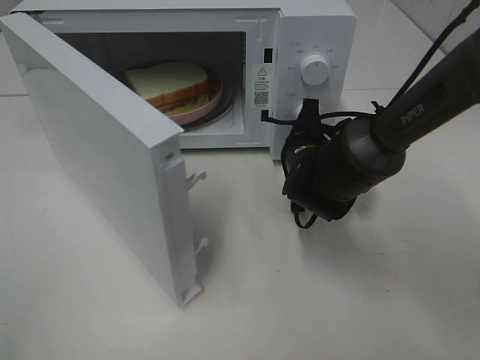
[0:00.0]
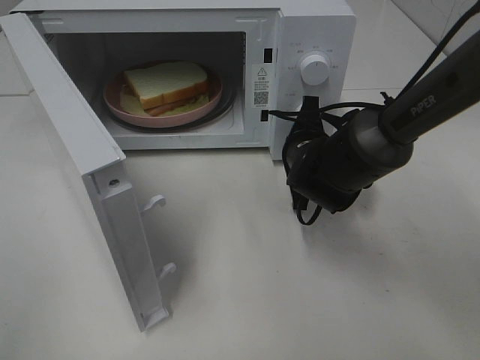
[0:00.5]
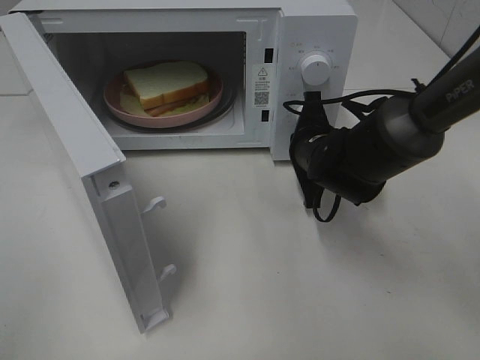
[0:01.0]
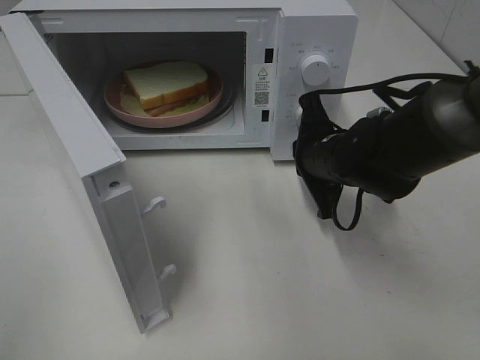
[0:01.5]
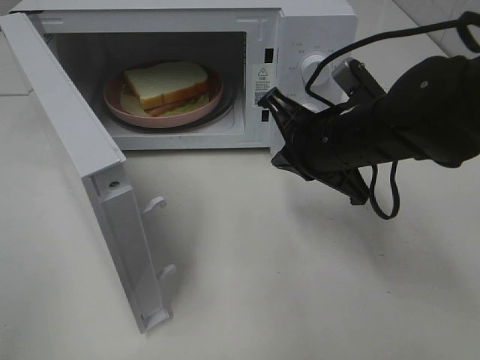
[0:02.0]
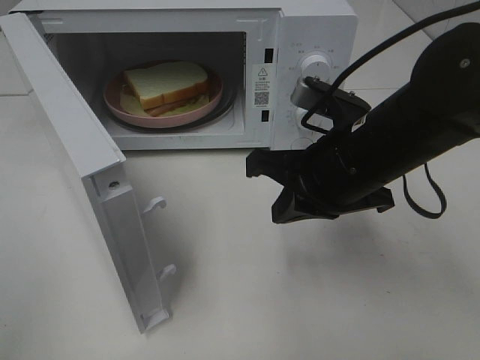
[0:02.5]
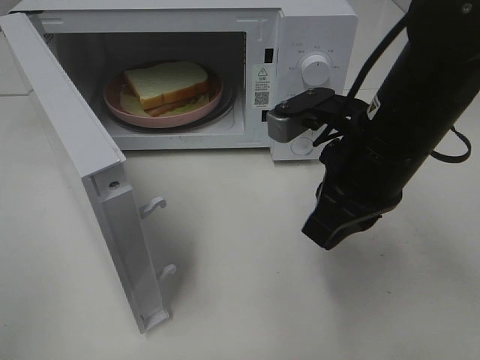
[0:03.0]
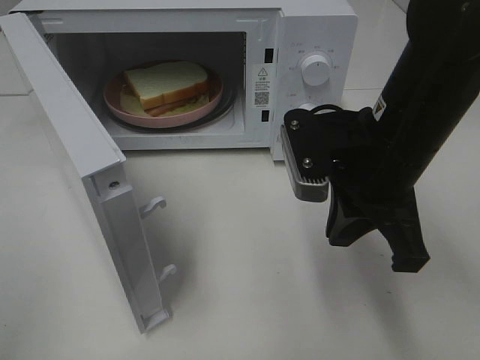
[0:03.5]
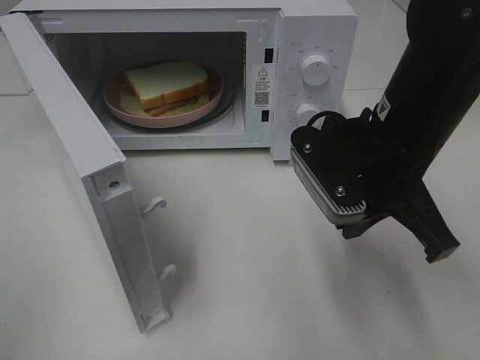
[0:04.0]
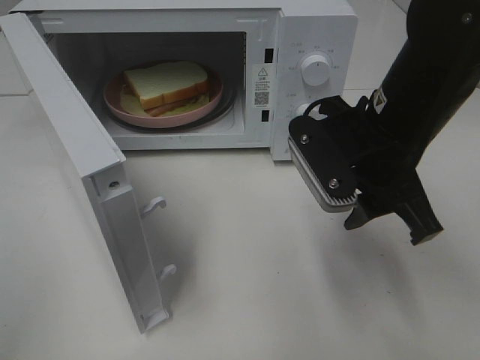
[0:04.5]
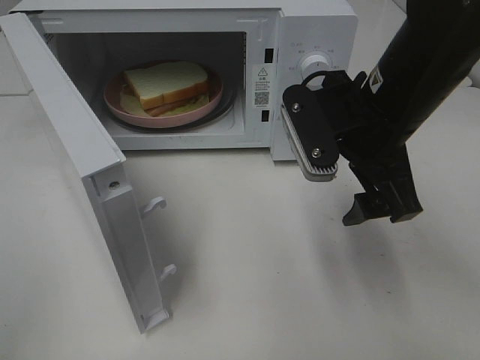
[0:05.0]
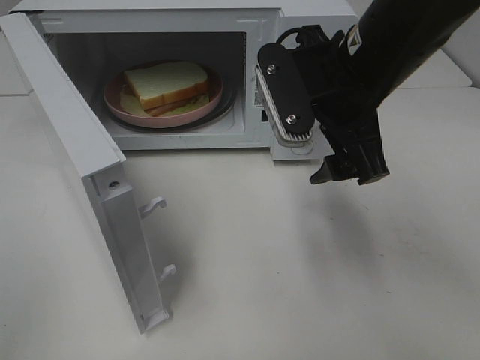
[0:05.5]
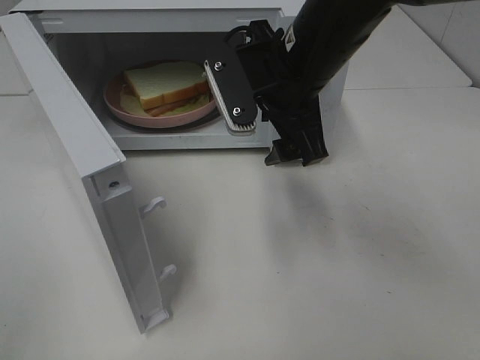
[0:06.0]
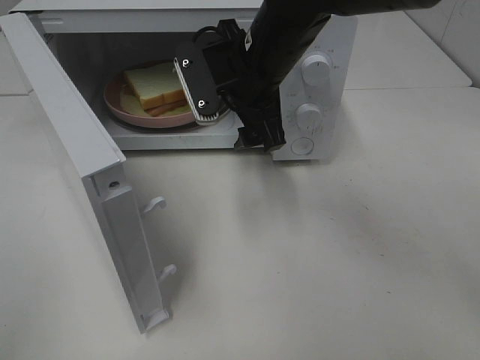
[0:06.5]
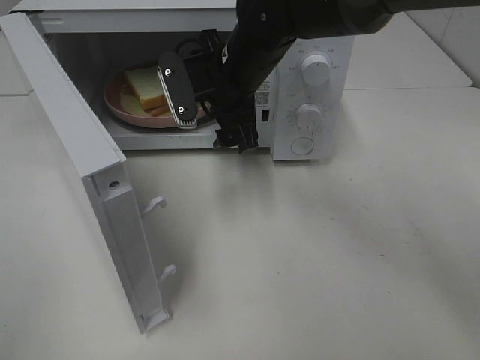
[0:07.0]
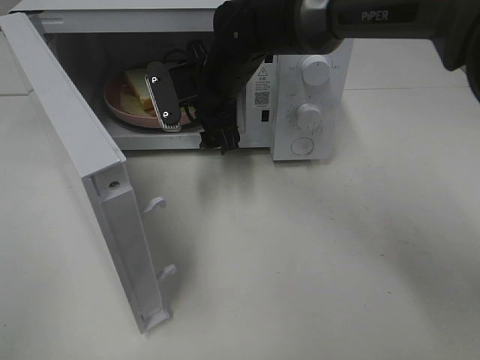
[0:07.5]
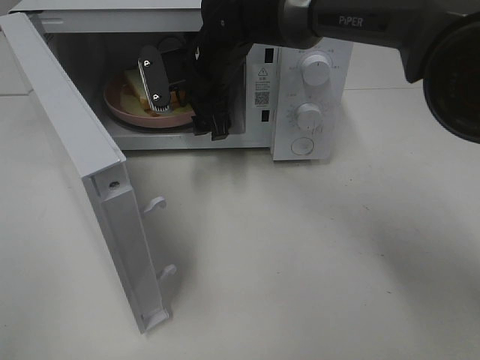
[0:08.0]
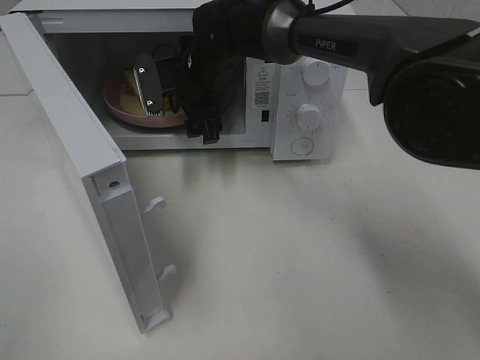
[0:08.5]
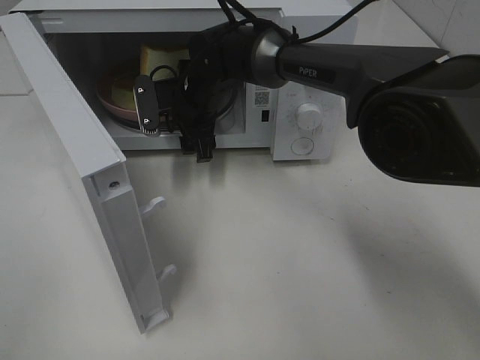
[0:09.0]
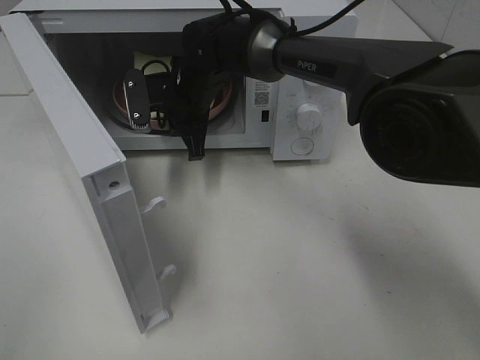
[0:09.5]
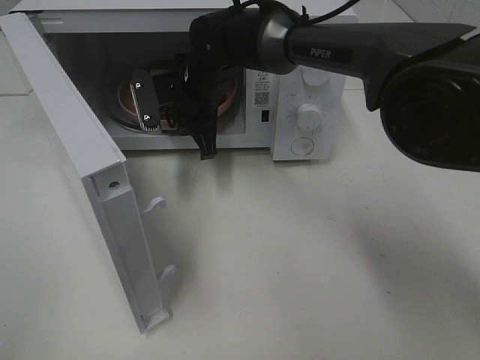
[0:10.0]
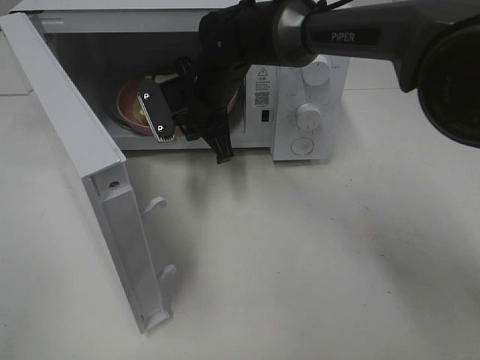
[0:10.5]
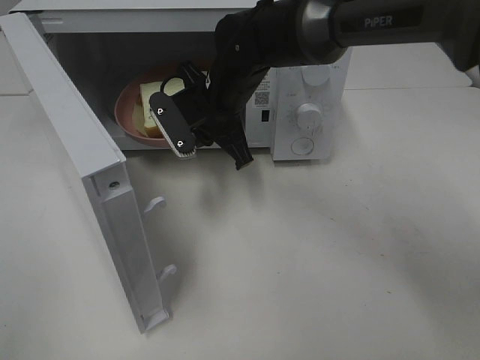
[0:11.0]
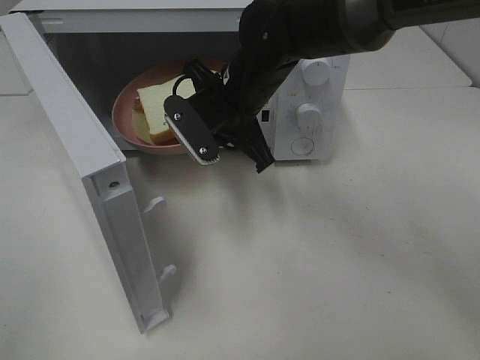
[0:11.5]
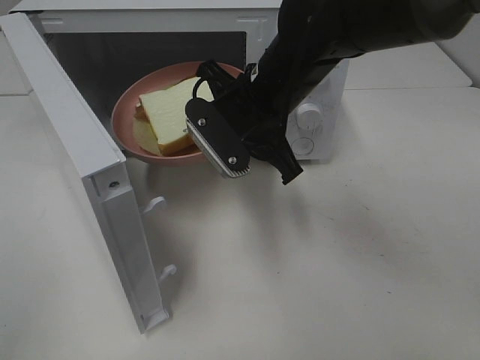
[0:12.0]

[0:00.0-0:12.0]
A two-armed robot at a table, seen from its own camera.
Task of the whole recording: Heat Sandwich.
Step, 2.0 to 9.5 s: Right hand: grab the plate with the sandwich.
0.0 to 2.0 s: The right gripper moves upward and backward, roughly 15 cm.
2.0 to 4.0 s: The right gripper ends up about 5 cm from where it was.
4.0 to 6.0 s: The right gripper travels forward and to the left by about 10 cm, and opens up.
6.0 to 8.0 s: The right gripper travels forward, to the left and downward by roughly 15 cm.
8.0 to 10.0 s: The right gripper closes.
10.0 to 12.0 s: The right gripper shifts roughly 15 cm backward, to the right and upward.

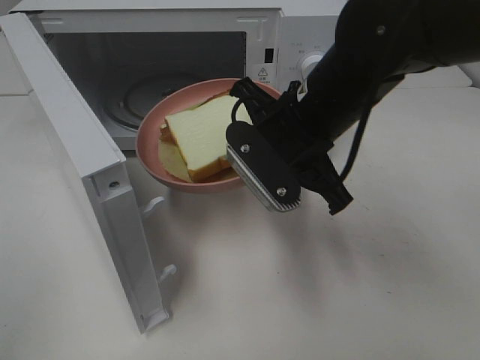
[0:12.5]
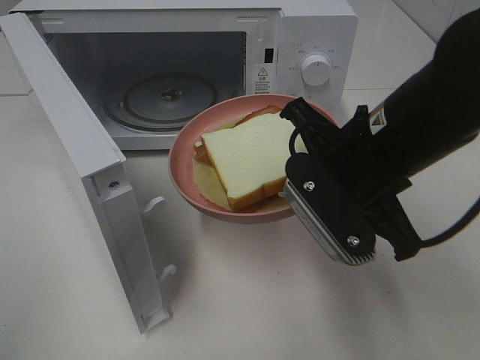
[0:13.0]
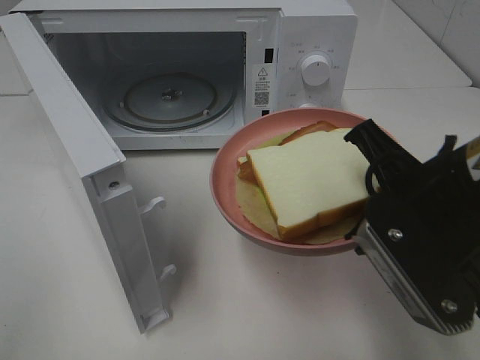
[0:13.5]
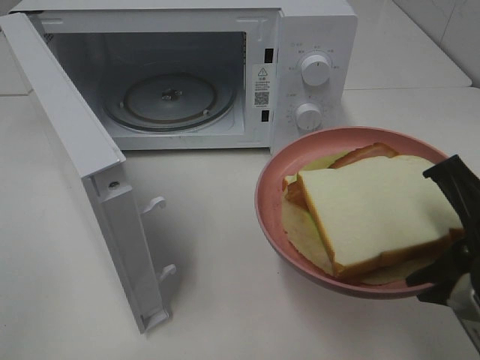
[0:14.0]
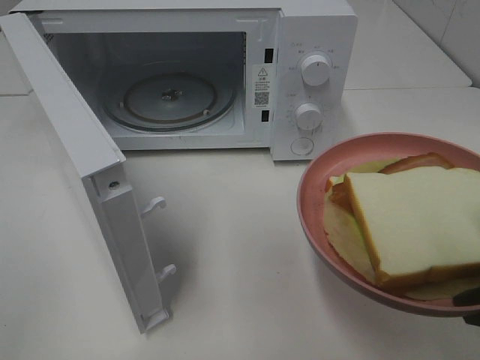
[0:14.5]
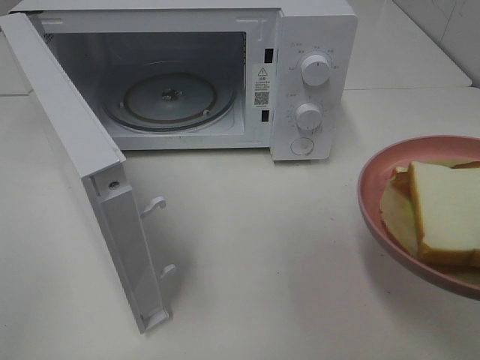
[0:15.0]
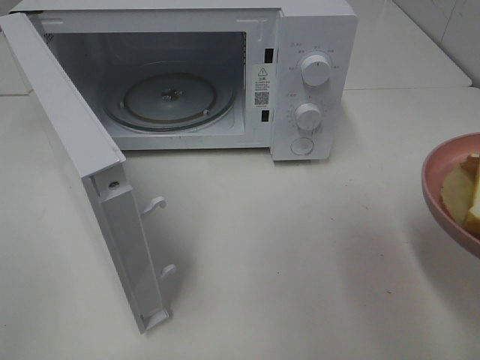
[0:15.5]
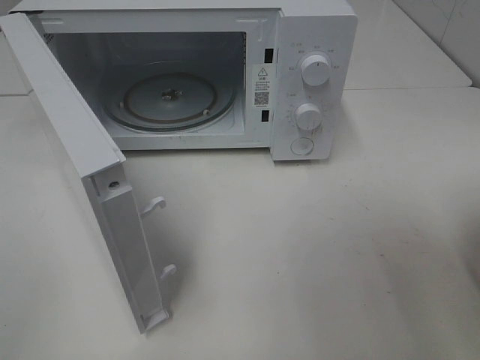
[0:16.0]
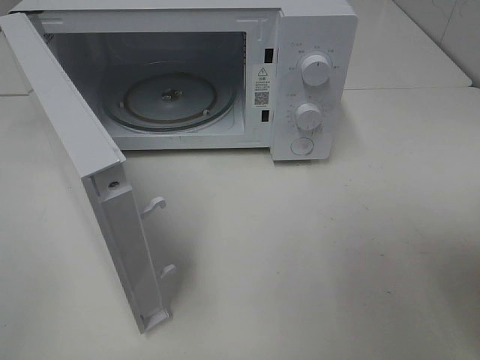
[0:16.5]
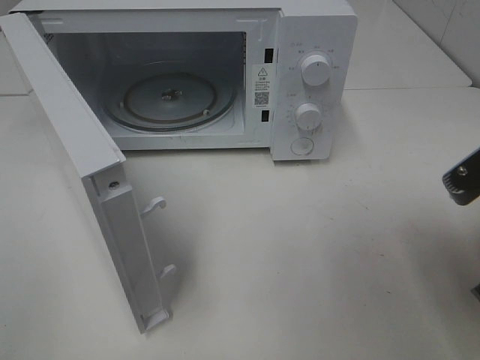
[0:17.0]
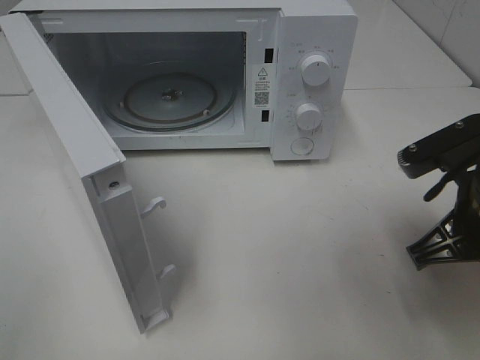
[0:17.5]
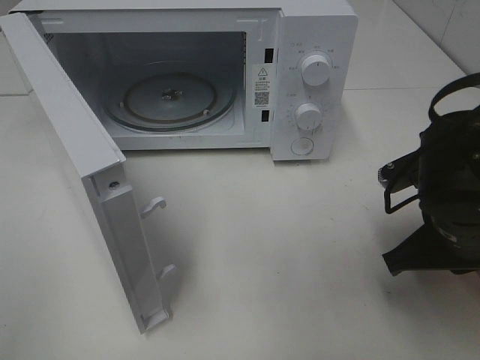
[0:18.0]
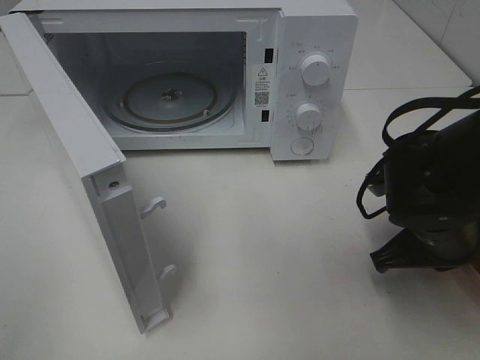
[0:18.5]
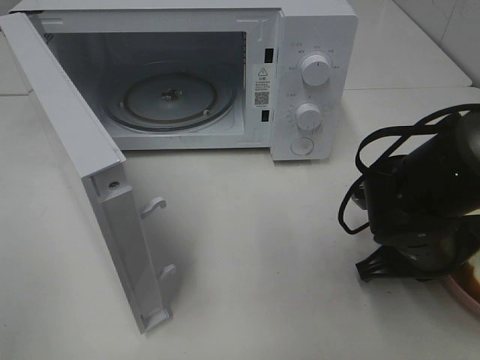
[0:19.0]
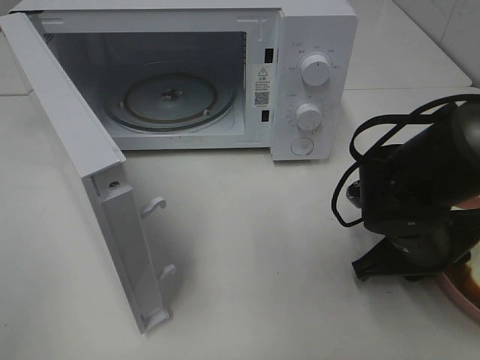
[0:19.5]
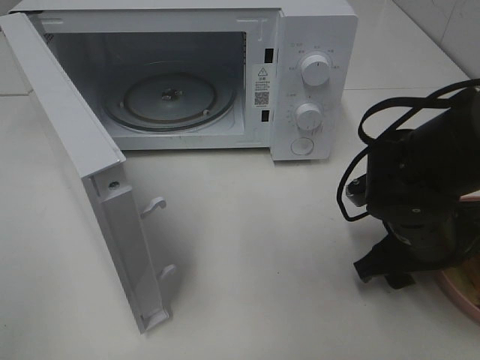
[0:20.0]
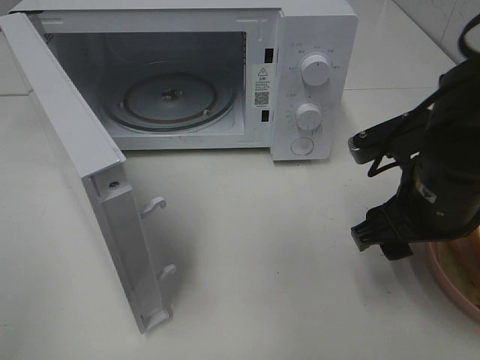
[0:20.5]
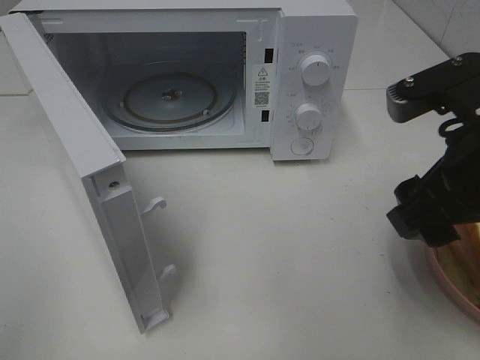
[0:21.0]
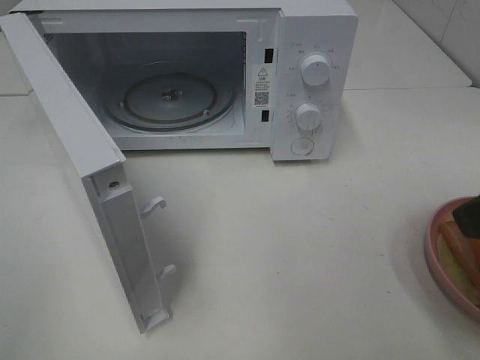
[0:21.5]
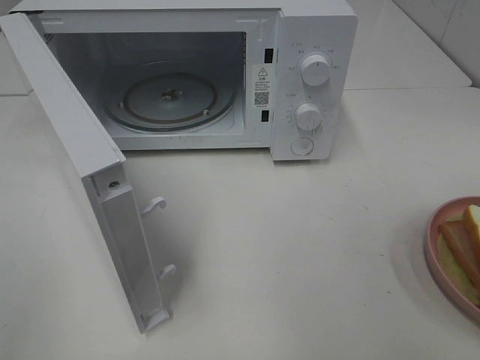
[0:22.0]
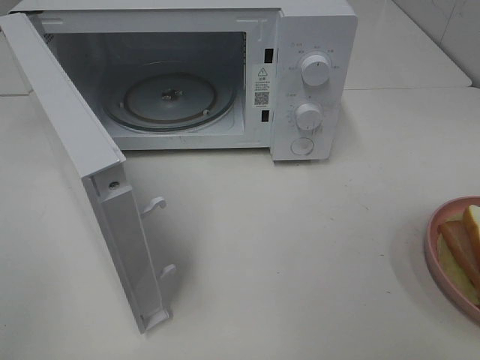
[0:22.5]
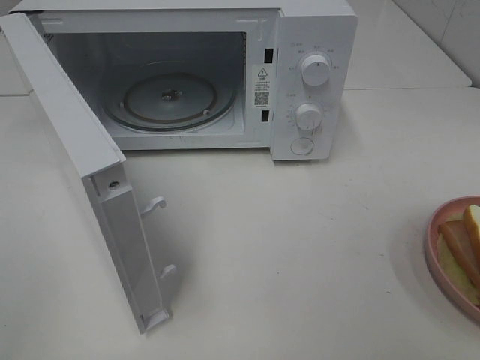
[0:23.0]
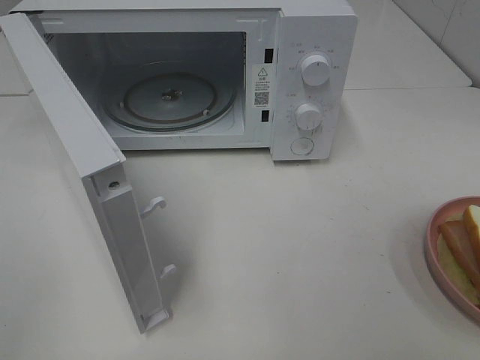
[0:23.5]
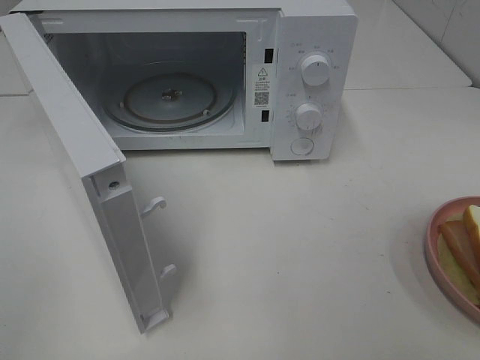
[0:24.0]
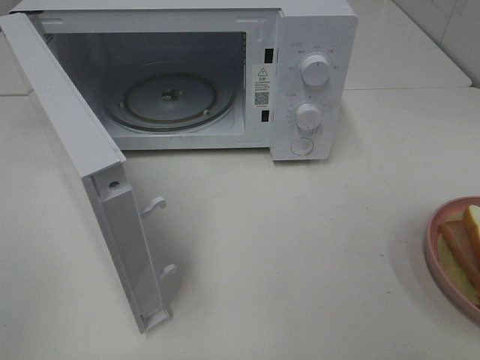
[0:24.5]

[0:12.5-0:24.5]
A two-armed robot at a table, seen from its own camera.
Task of the whole recording: Heat Sandwich.
Step, 12.5 to 20.5 s: Right hand: place the plate on the table.
12.5 to 14.5 s: The right gripper heads backward and to the right, covering about 25 cm.
16.5 to 18.5 s: The right gripper goes approximately 15 cm forward, downward and to the left.
18.5 to 20.5 s: The right gripper shifts about 5 cm upward, and opens.
20.5 to 22.5 s: The right gripper is displaced backward, upward and to the right by roughly 25 cm.

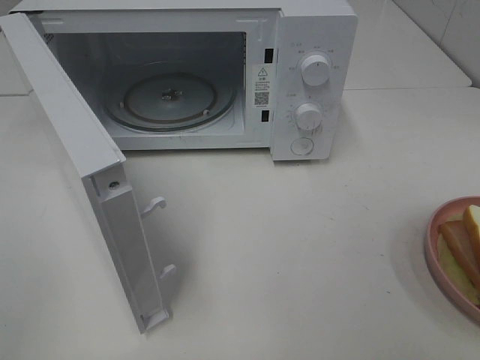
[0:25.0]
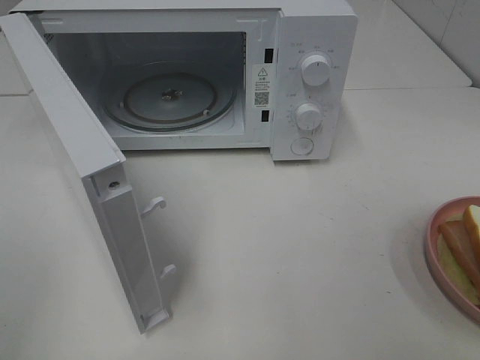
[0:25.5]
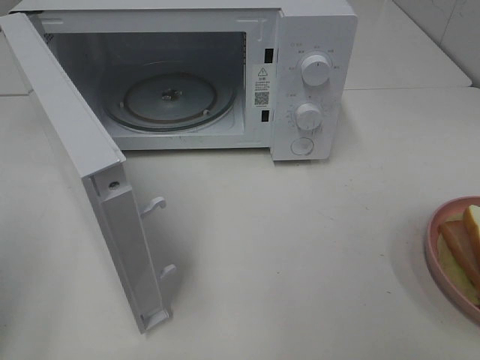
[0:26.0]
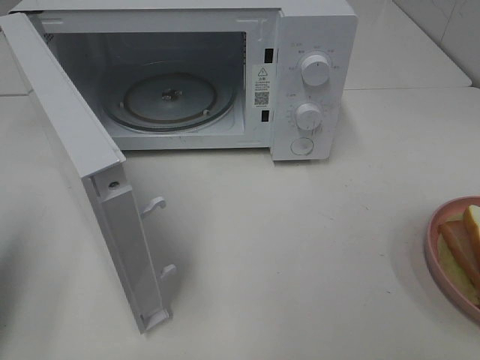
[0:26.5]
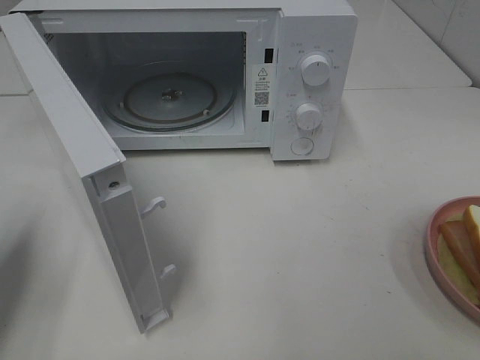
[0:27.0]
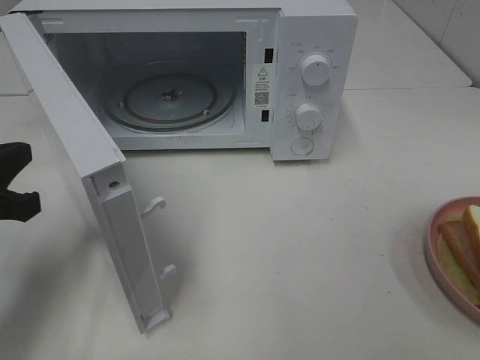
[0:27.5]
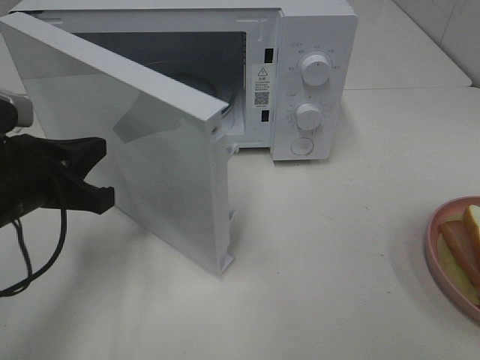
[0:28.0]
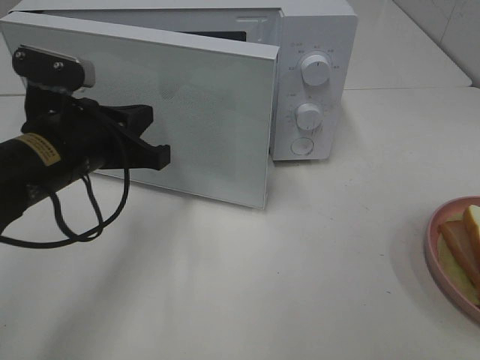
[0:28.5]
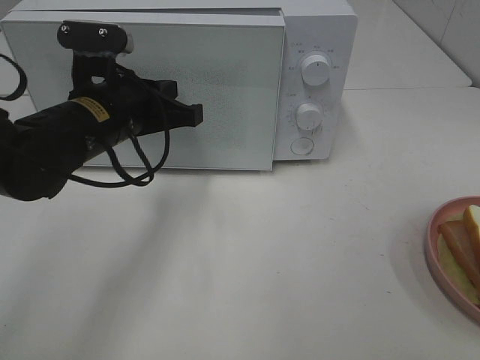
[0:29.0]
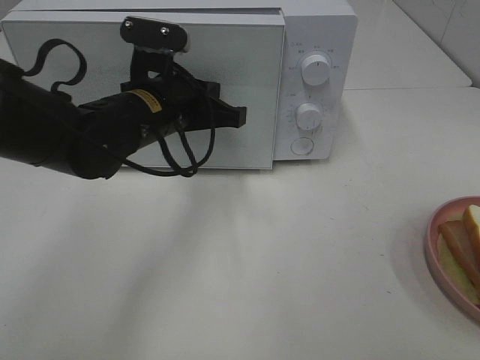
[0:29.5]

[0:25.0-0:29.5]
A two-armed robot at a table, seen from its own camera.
Task of the whole recording: Heat Sandwich.
25.0 to 27.0 s: The left gripper goes roughly 20 cm forward and downward, and closes up.
27.0 to 29.5 s: The left gripper travels to the right and forward by roughly 30 cm.
